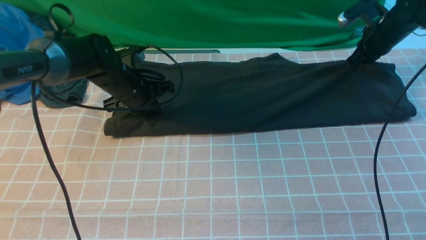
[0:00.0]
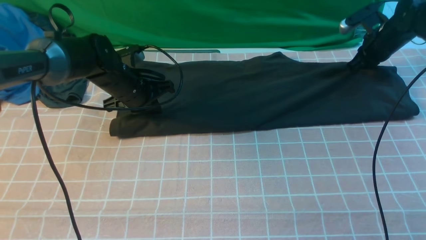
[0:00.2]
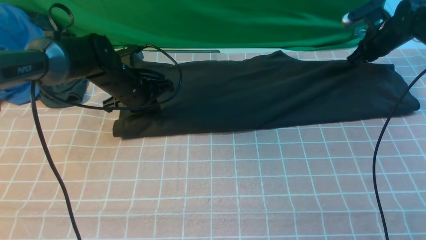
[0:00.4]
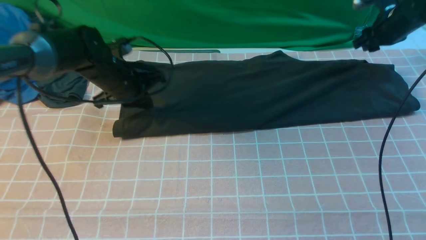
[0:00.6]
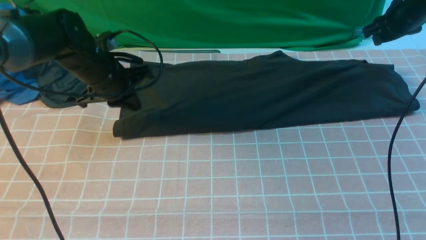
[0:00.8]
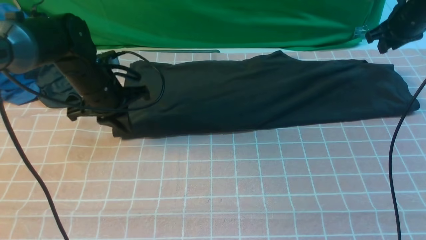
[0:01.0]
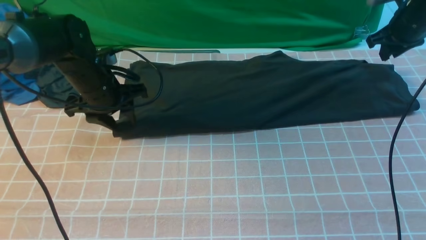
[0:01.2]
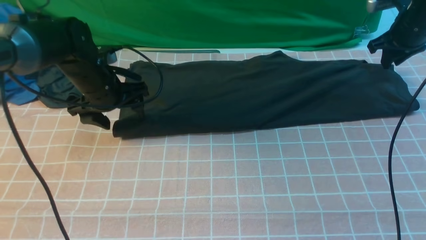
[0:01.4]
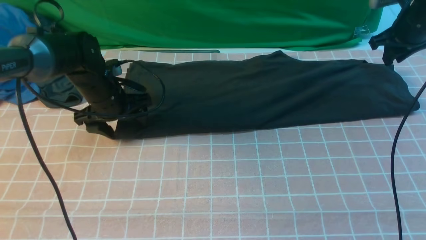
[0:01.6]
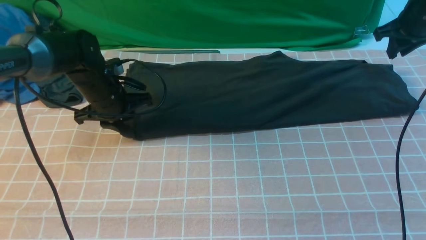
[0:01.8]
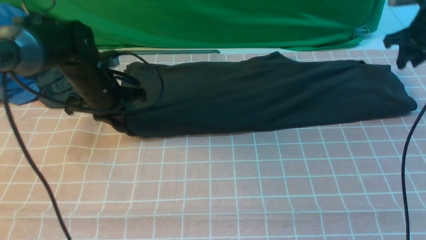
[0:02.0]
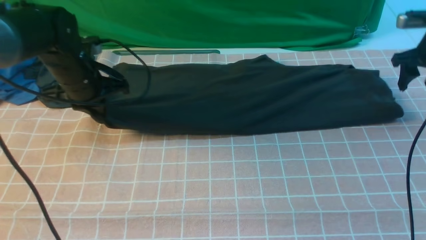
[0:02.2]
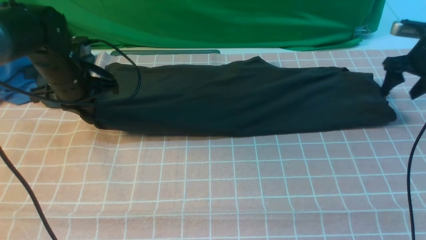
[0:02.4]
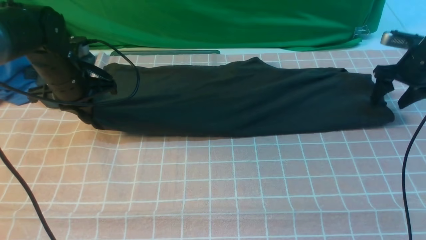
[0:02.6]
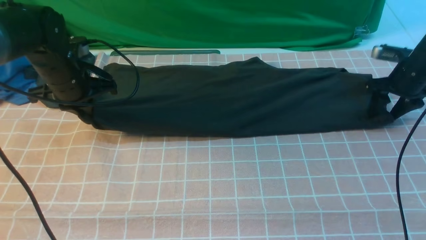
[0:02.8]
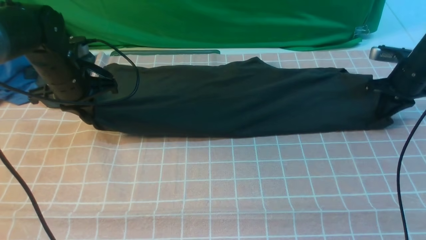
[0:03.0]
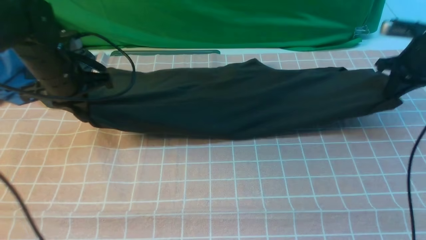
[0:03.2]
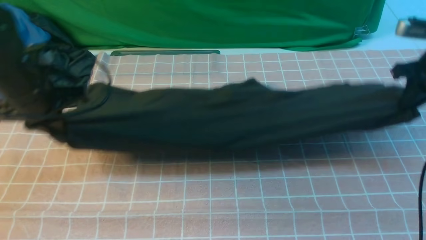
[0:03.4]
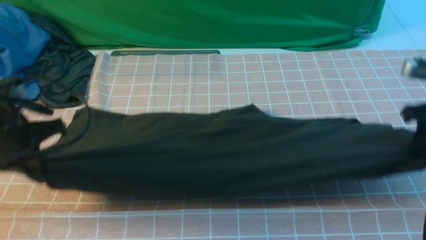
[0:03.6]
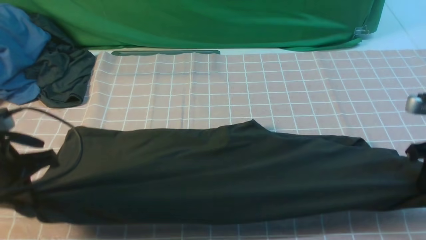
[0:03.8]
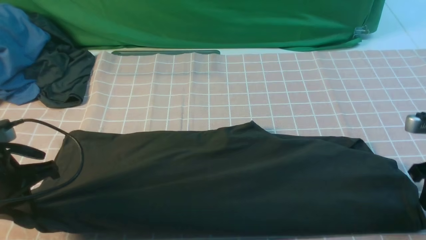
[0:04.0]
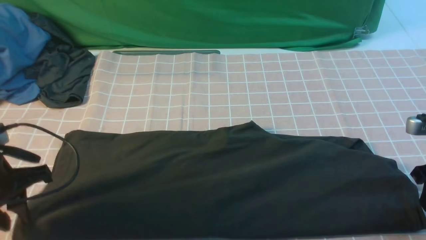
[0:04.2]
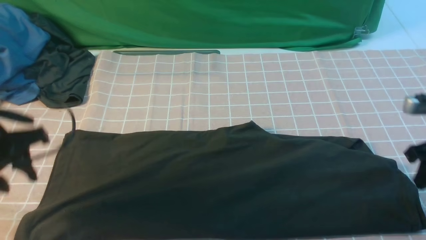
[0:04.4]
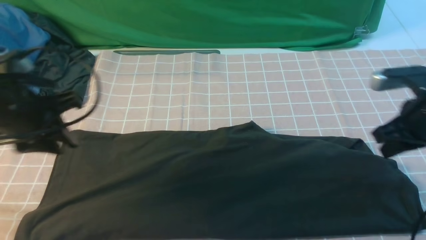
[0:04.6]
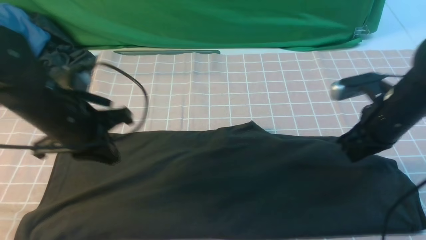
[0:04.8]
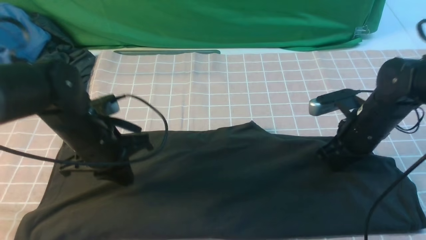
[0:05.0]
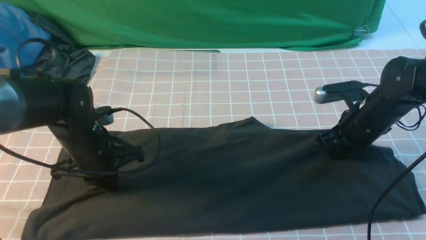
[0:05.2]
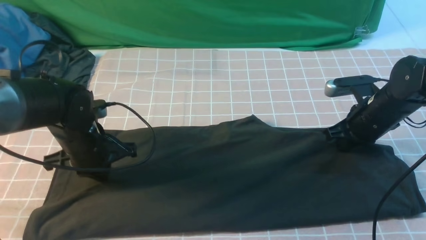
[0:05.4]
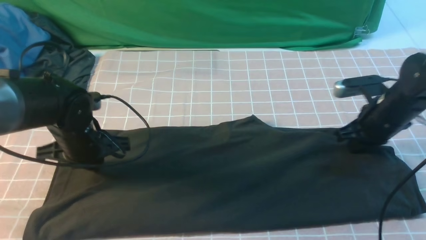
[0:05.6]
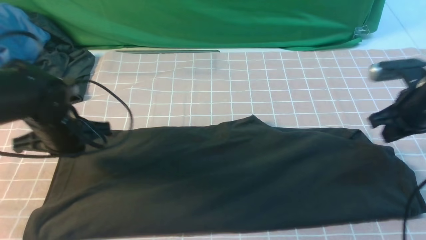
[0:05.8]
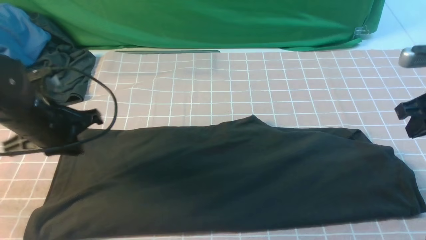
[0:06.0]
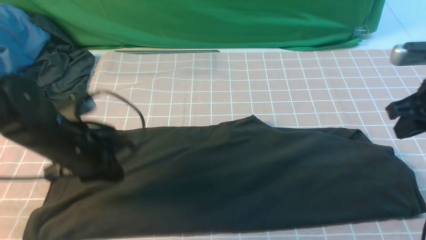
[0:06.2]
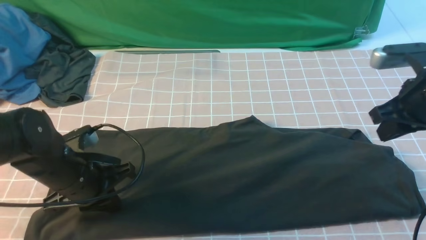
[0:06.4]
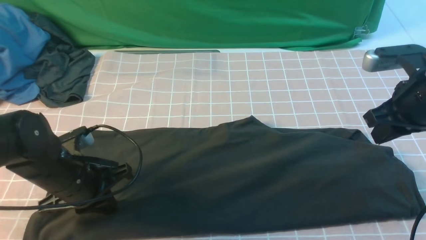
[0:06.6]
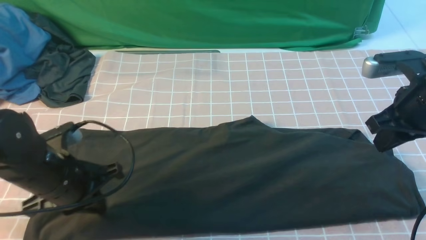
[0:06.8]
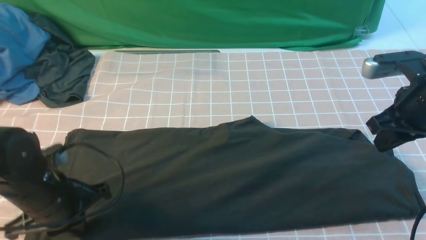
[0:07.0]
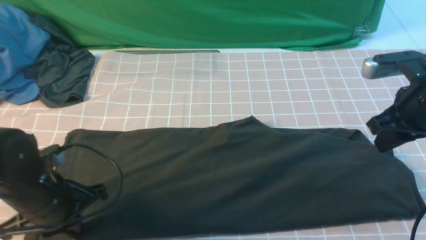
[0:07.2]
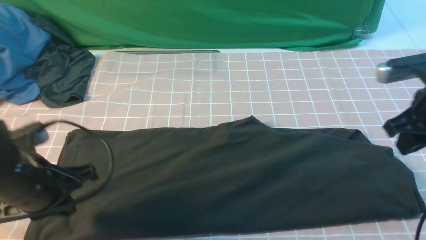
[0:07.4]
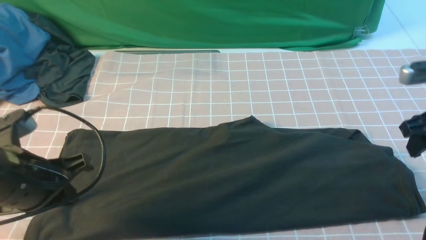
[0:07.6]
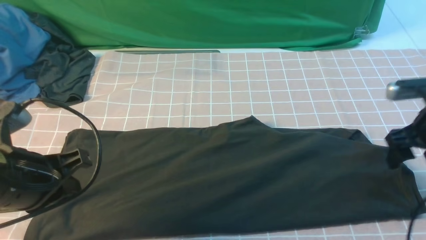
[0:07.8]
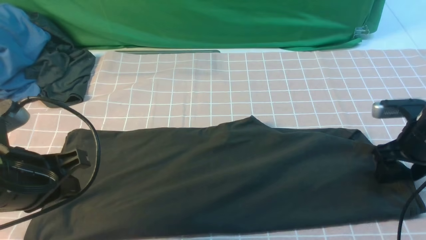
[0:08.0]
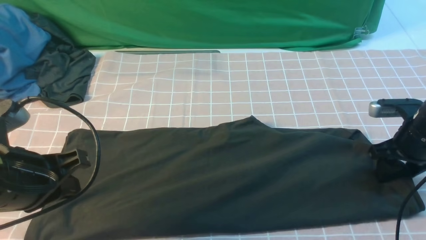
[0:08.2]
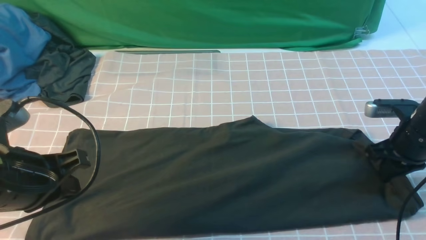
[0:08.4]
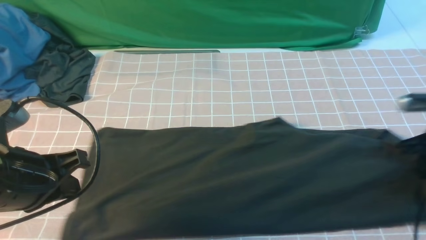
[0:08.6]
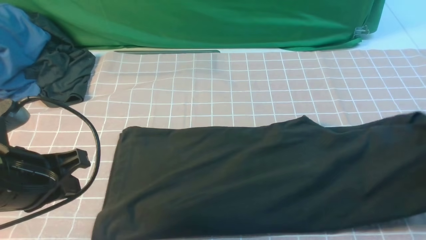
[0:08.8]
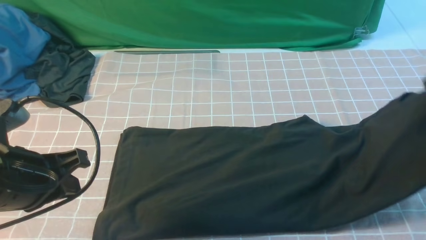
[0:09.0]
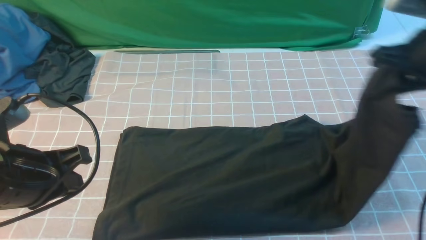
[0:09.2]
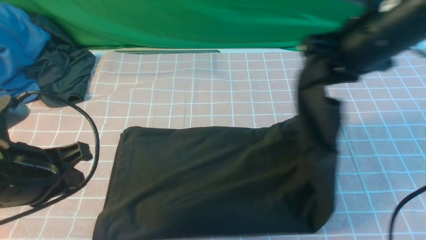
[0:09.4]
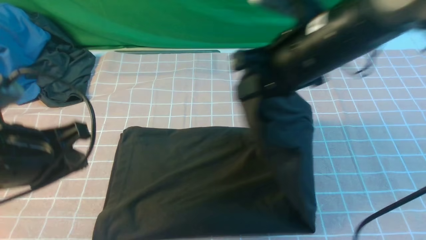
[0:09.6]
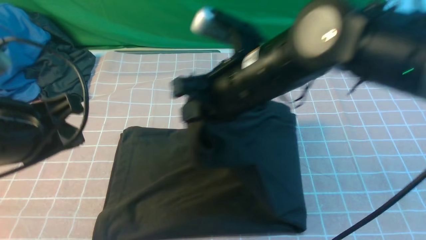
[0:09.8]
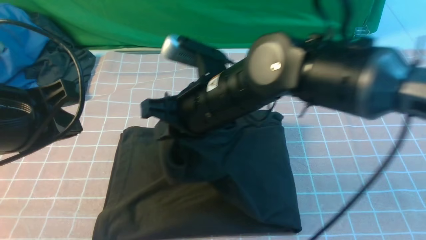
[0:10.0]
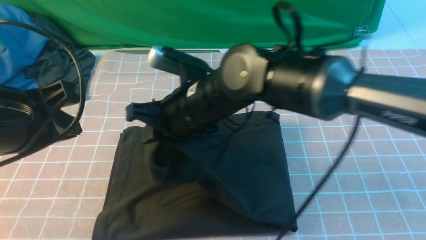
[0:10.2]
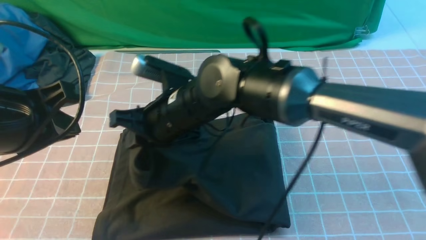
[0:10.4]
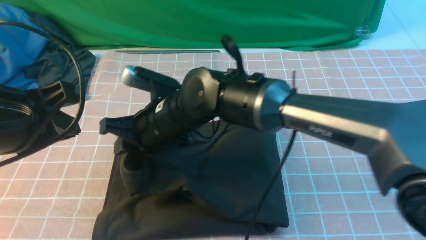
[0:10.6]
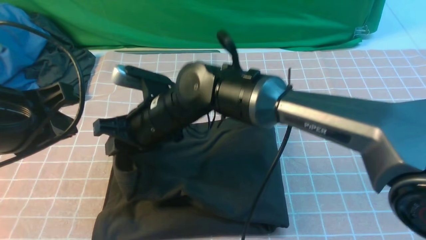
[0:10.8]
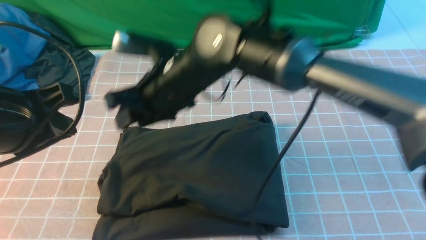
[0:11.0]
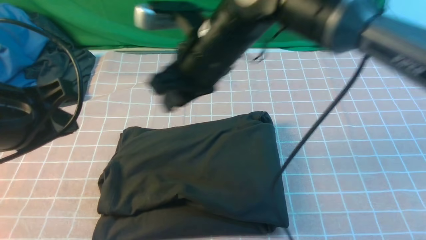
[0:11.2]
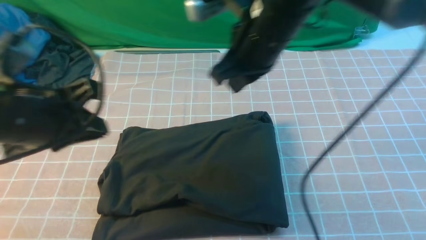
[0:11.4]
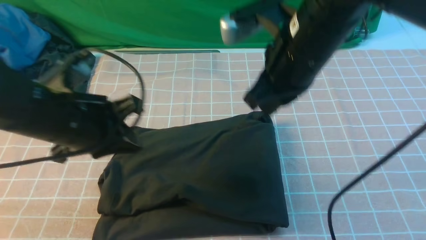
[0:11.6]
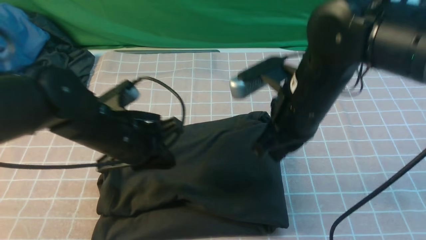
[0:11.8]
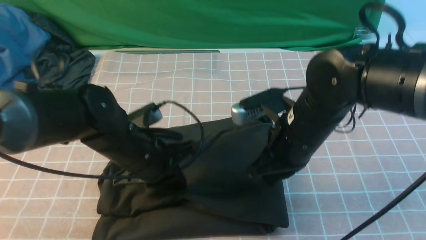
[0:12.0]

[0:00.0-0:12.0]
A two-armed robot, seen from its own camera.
Step, 0:00.0 to 0:08.2: use the right arm to clamp the right edge of the fabric.
Step, 0:08.4 to 0:11.0: use the right arm to drag the right edge of the fabric to the left and folds it over the left edge.
0:00.0 to 0:01.6: The right gripper goes about 5 cm upward, and opens its fingers. Meanwhile the left gripper opens.
0:01.6 to 0:03.0: The left gripper goes approximately 5 cm upward, and closes up. Meanwhile the right gripper heads downward, covering about 10 cm, and opens and closes again.
0:03.0 to 0:04.4: Both grippers travel together backward, roughly 15 cm. The left gripper opens up.
0:04.4 to 0:06.0: The left gripper moves downward, roughly 5 cm, and closes up.
0:06.0 to 0:07.6: The left gripper moves backward, approximately 10 cm; the right gripper opens up.
0:07.6 to 0:09.0: The right gripper moves upward, roughly 5 cm, and closes up.
0:09.0 to 0:10.4: The right gripper shifts approximately 40 cm to the left. Meanwhile the left gripper moves upward, some 5 cm.
0:10.4 to 0:12.0: The right gripper goes roughly 15 cm to the right. The left gripper shifts some 20 cm downward, to the right and forward.

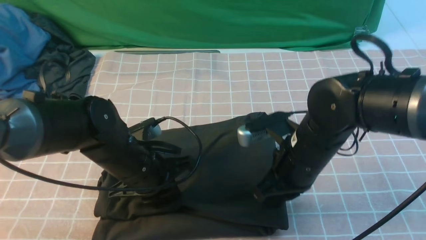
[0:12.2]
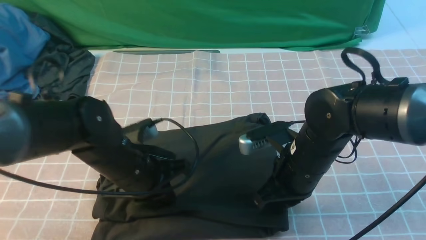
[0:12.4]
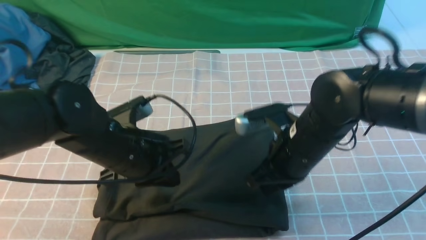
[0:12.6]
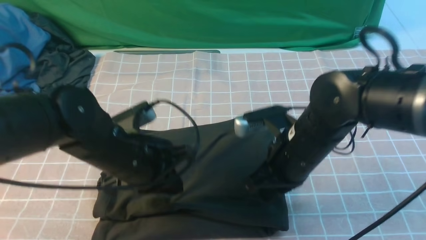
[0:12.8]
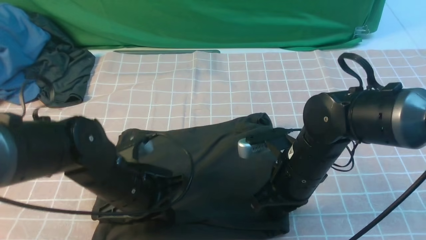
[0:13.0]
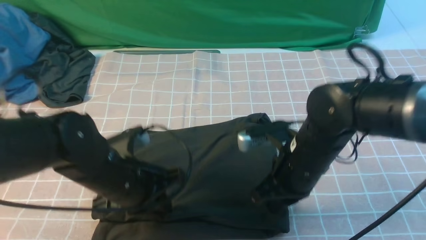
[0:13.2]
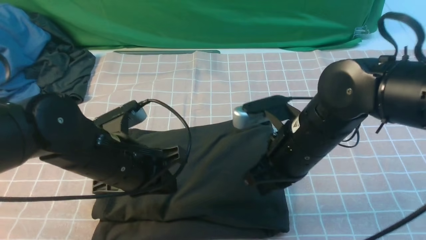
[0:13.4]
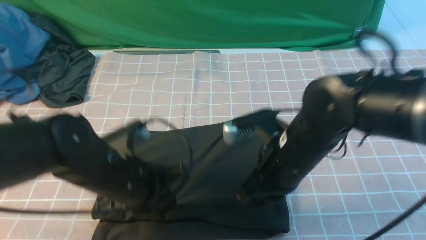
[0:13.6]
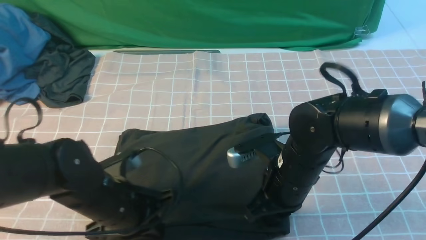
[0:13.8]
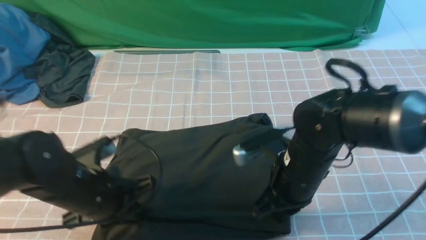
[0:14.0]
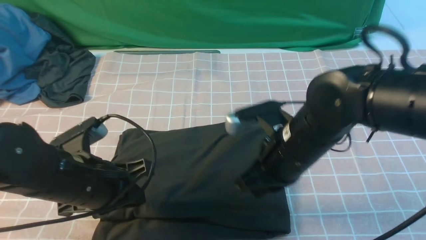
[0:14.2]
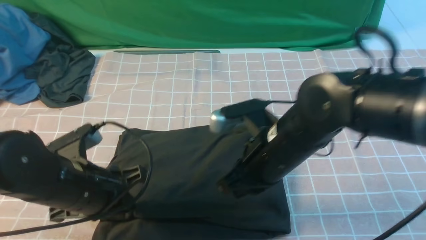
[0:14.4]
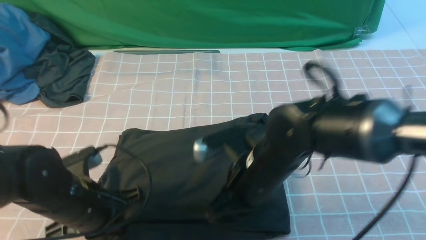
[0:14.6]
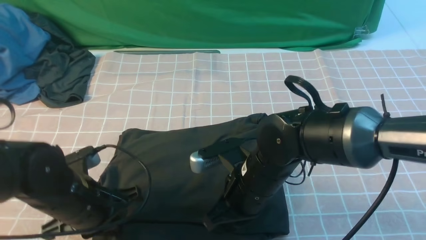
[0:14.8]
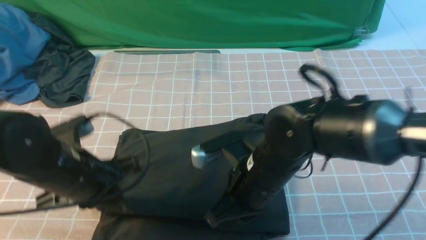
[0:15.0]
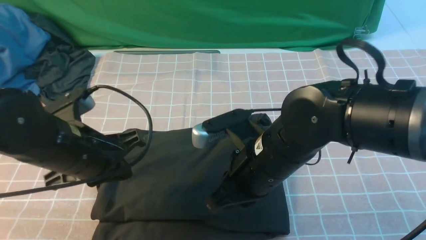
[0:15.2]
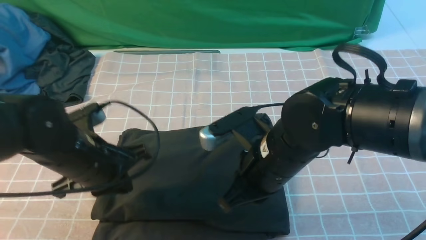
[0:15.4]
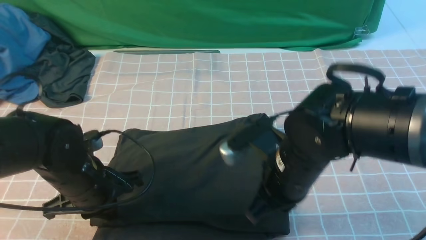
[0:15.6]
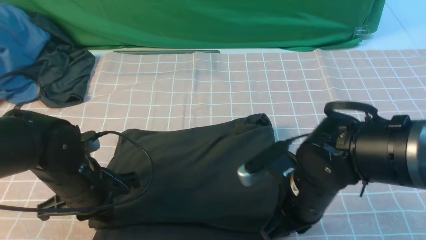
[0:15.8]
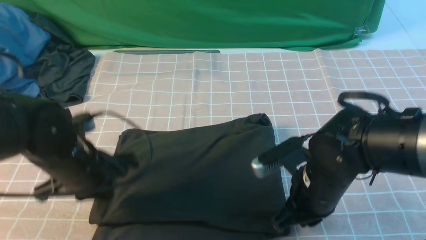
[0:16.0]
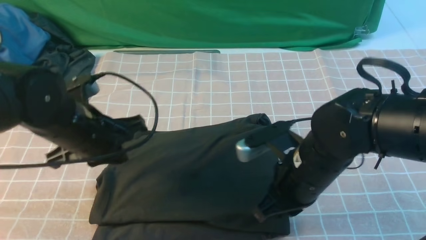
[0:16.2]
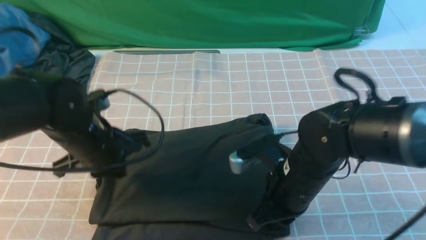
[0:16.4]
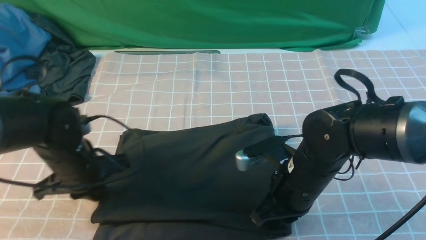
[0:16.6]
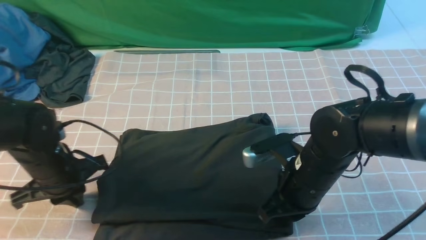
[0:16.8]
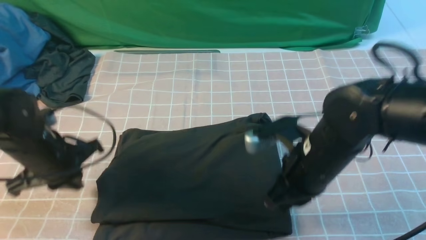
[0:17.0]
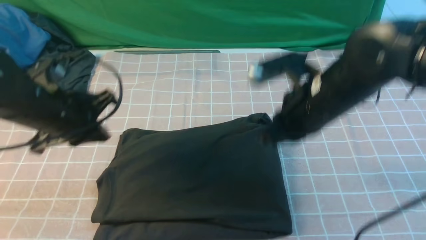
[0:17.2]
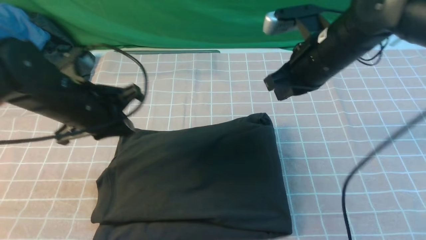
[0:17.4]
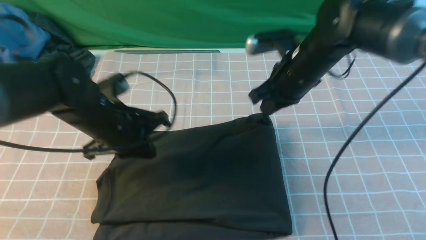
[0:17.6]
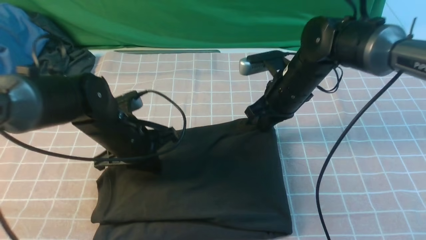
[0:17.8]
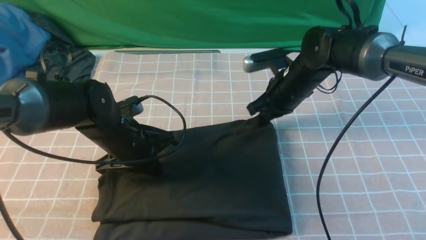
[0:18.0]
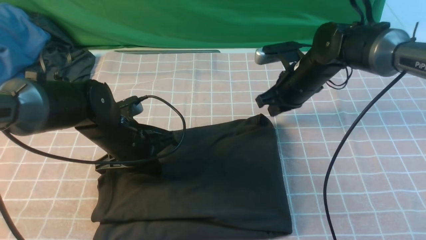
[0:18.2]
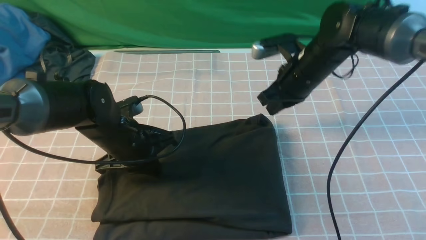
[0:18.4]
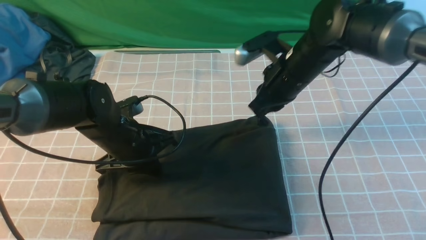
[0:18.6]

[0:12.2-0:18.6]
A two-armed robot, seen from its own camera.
0:12.2 to 0:13.8: The left gripper travels backward by about 5 cm.
0:13.8 to 0:15.4: The right gripper moves roughly 5 cm.
0:15.4 to 0:17.0: The left gripper is displaced to the left by approximately 5 cm; the right gripper heads to the right, covering some 5 cm.
0:17.0 to 0:18.6: The right gripper moves forward, about 15 cm. The left gripper heads to the right, covering roughly 10 cm.
